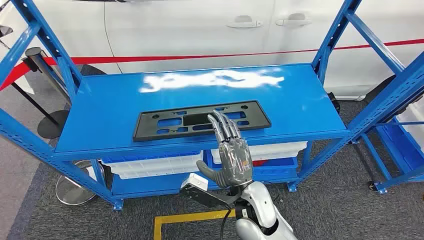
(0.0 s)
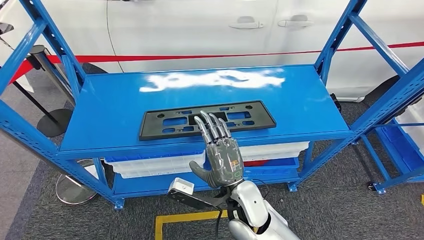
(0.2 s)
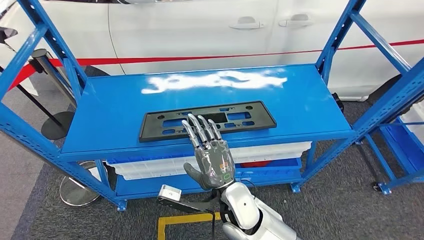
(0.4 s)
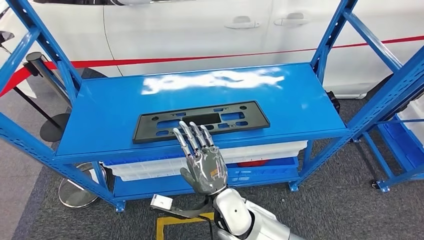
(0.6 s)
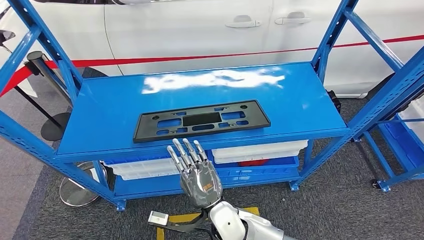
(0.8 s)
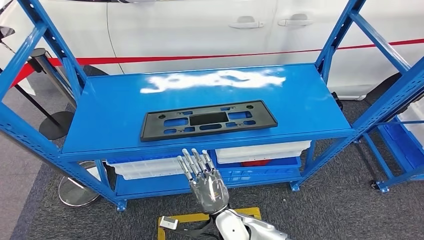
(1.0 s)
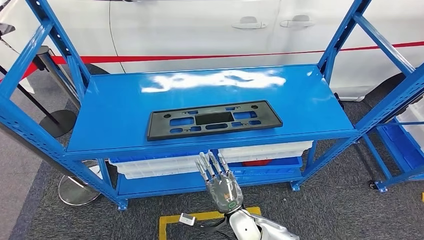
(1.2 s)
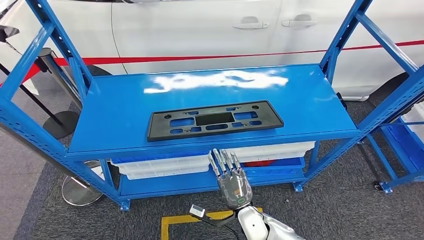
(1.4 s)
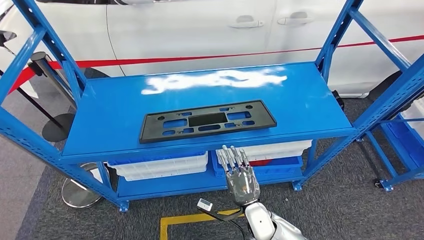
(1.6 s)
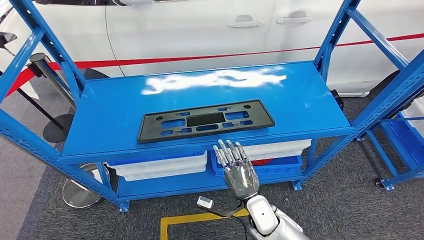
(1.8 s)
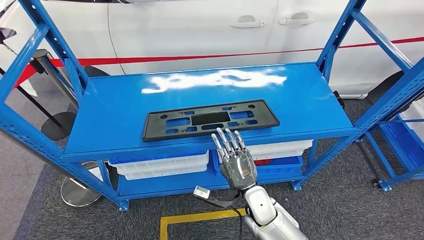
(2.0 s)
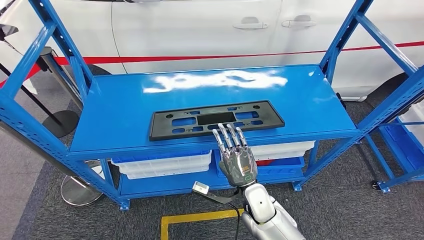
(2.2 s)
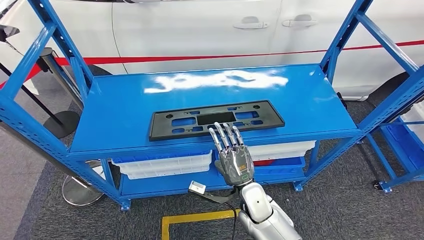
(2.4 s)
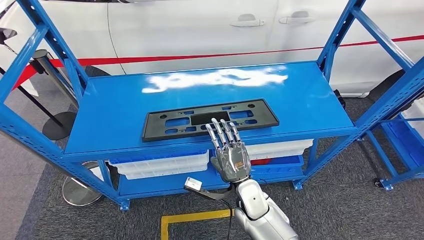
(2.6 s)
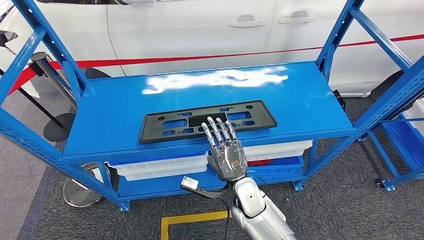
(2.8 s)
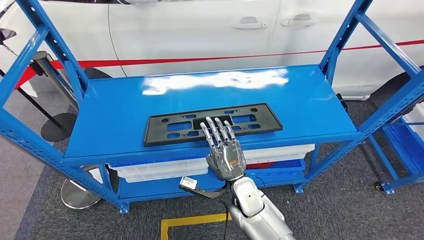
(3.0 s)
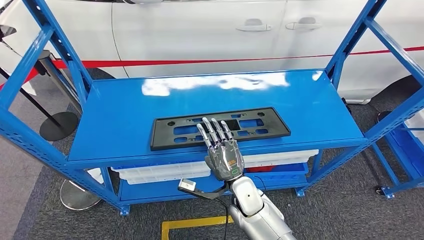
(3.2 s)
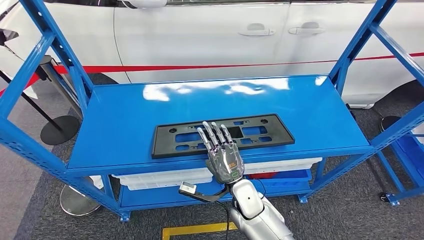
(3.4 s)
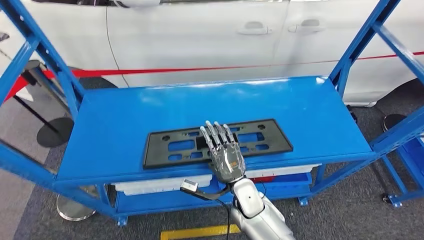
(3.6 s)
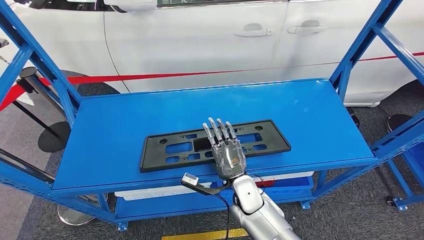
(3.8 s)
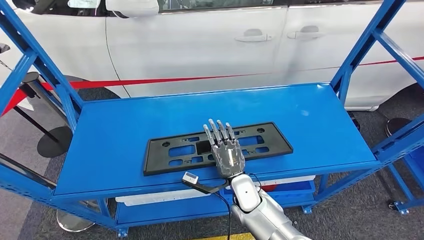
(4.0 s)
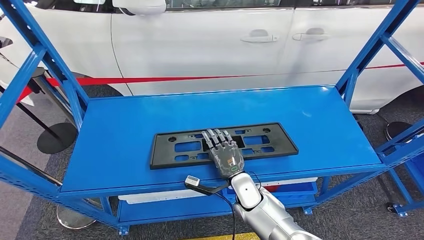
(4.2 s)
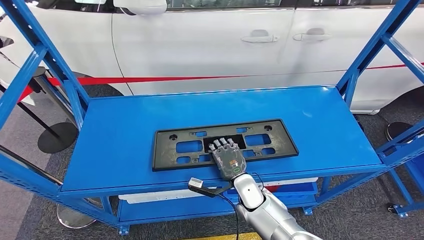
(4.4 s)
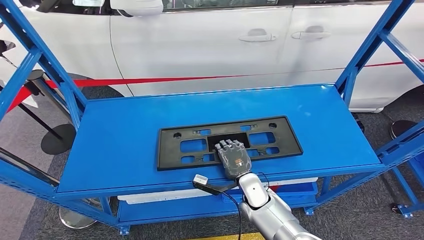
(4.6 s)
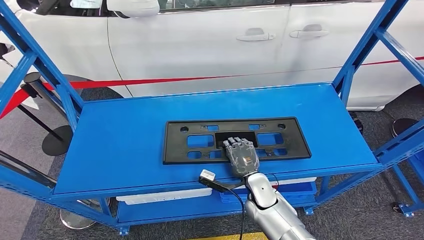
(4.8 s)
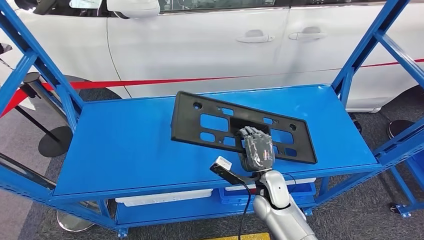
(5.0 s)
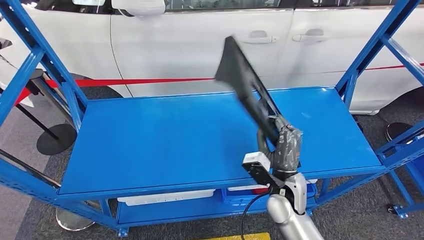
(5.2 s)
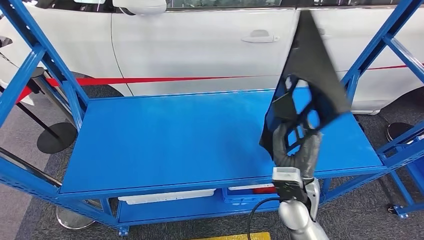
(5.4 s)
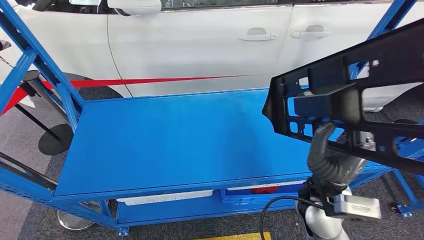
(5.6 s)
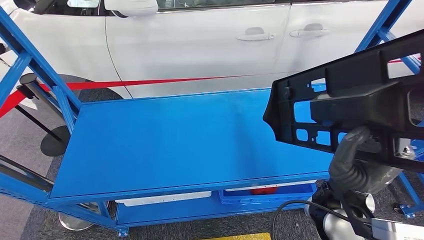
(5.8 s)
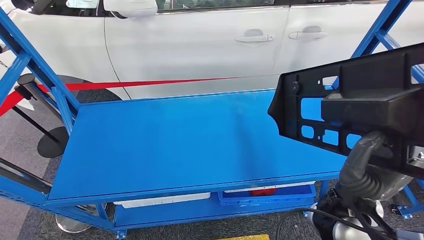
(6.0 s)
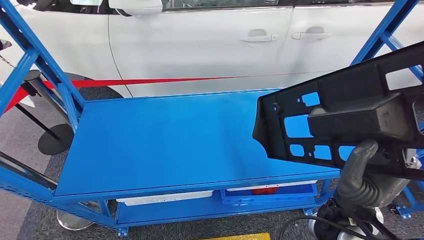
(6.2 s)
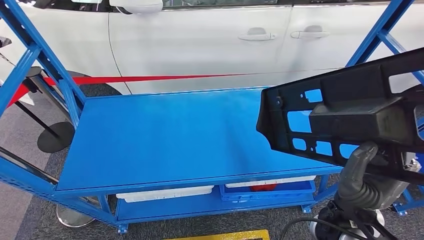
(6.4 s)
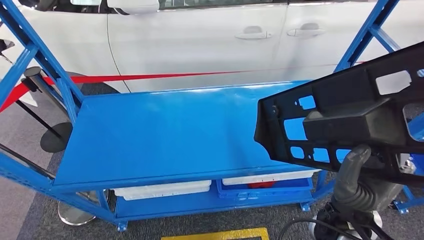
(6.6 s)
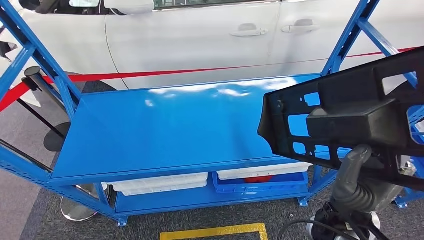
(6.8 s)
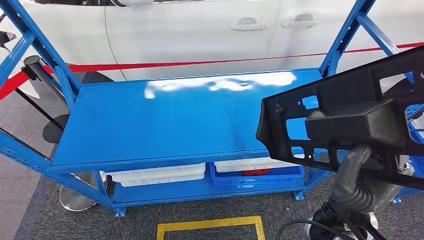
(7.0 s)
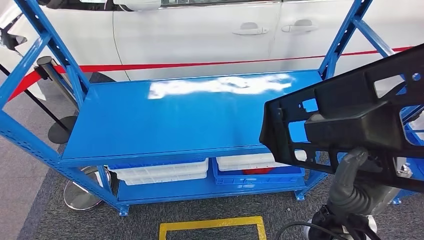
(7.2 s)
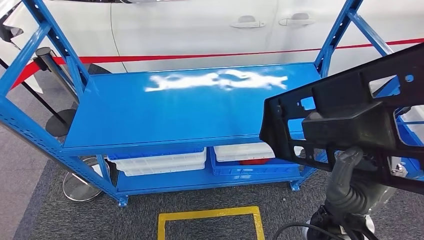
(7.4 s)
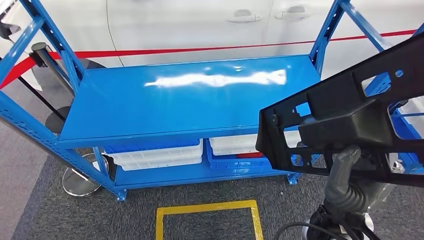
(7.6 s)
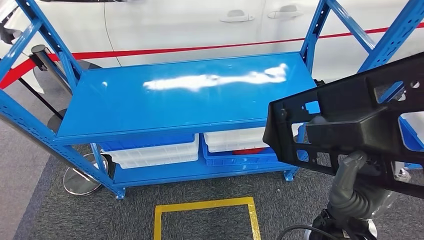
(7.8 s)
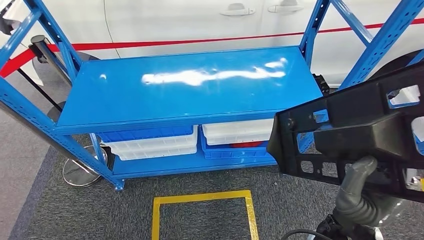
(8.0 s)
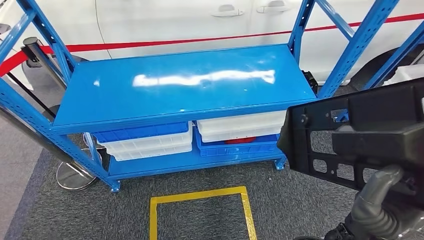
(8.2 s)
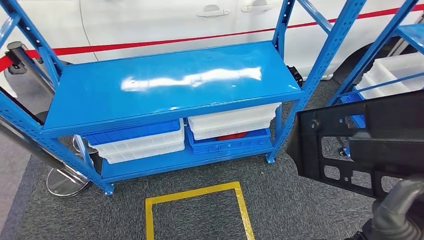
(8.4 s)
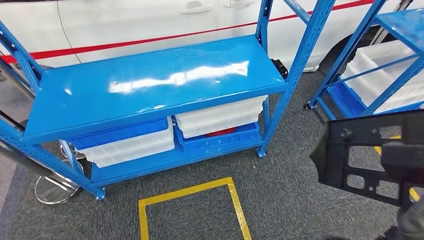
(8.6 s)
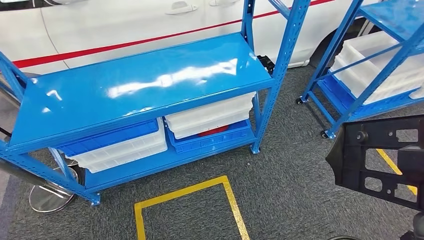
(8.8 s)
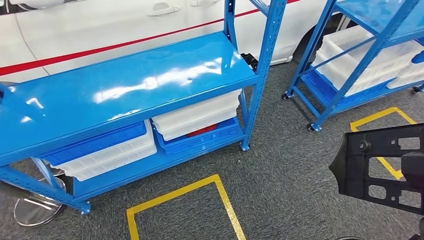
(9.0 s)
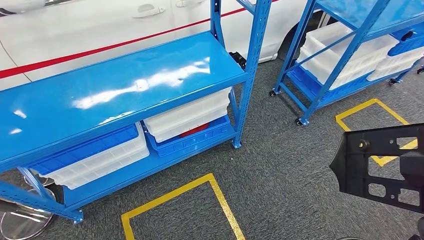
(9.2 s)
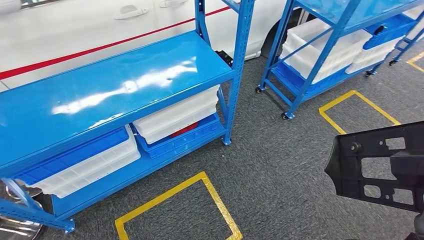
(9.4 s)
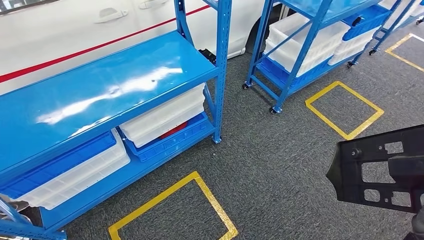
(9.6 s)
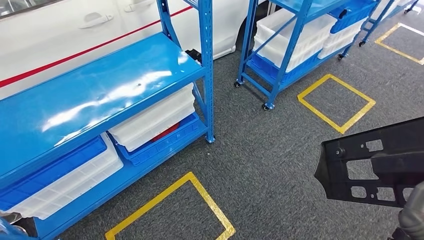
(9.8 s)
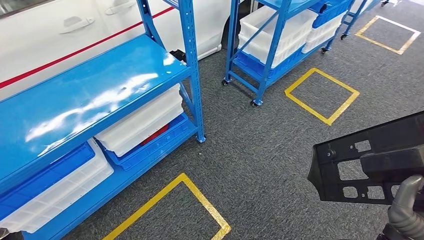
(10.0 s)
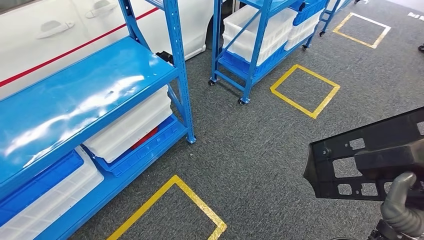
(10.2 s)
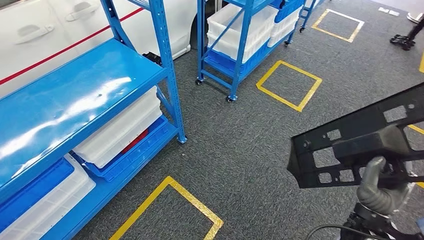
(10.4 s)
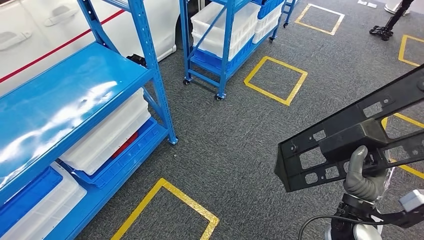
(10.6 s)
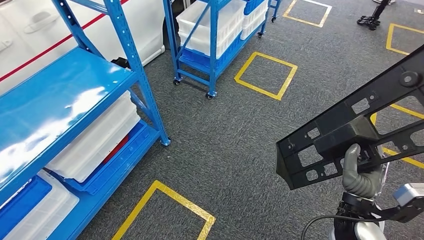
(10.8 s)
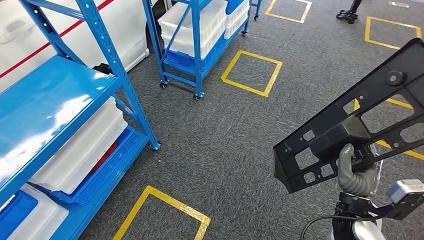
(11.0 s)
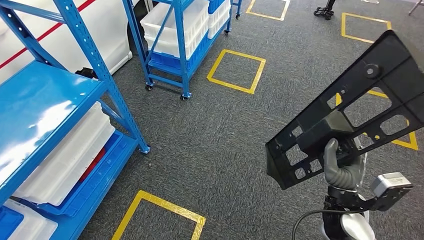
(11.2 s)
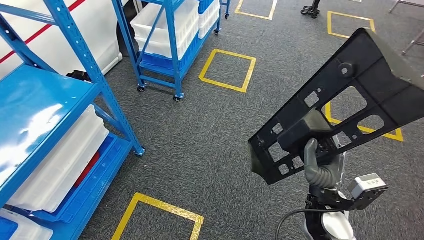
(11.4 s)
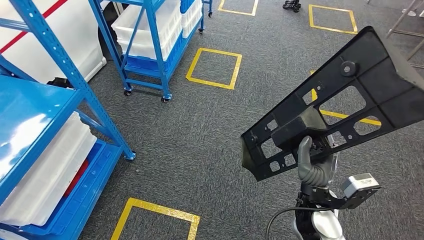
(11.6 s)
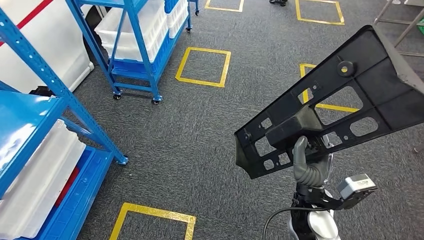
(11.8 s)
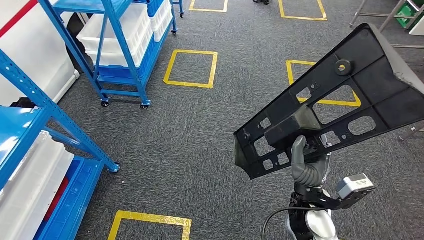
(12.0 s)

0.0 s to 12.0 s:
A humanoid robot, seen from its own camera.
Step, 0.0 to 5.4 s: Pick up the large material from the shelf.
1.6 to 3.0 s: The right hand moves upward, about 5 cm.

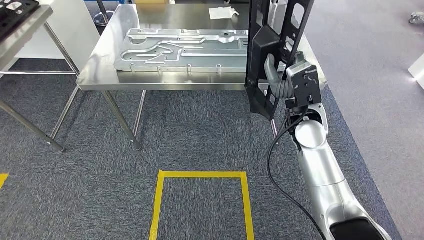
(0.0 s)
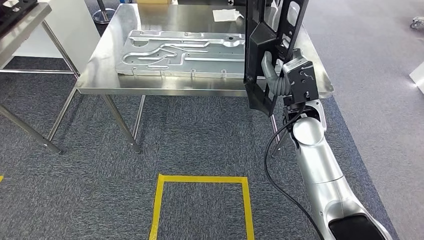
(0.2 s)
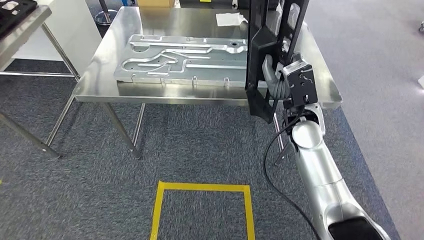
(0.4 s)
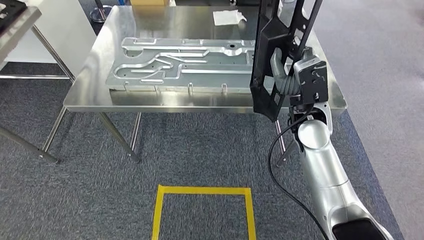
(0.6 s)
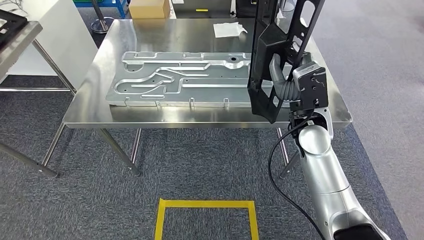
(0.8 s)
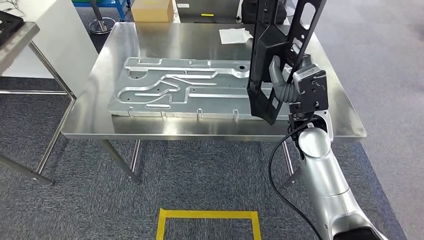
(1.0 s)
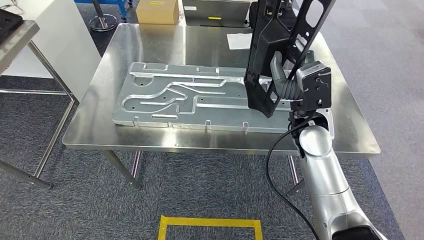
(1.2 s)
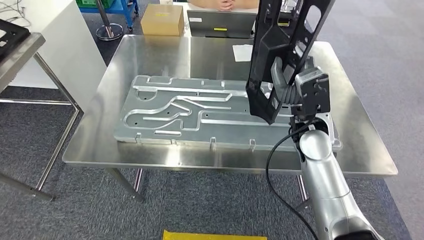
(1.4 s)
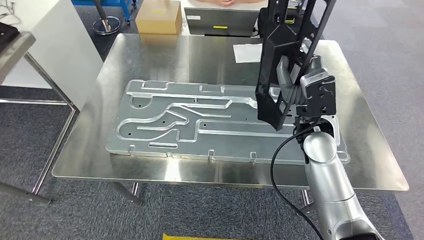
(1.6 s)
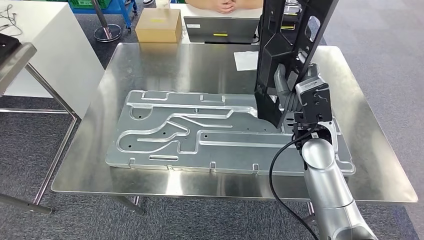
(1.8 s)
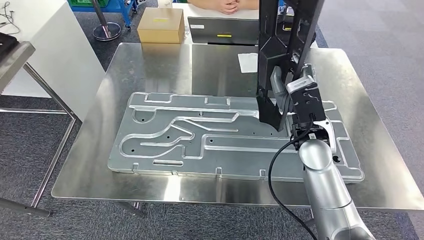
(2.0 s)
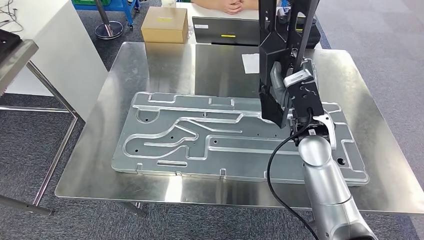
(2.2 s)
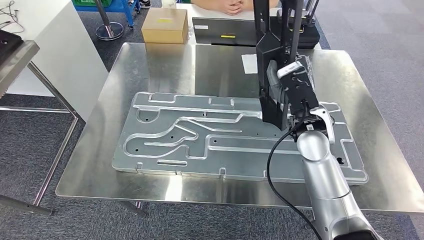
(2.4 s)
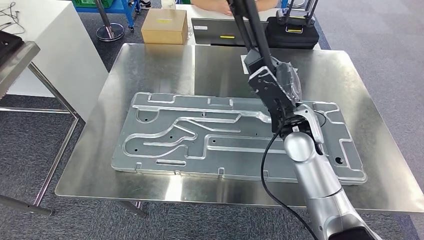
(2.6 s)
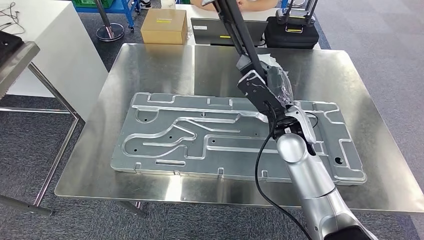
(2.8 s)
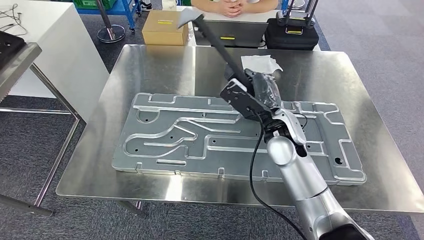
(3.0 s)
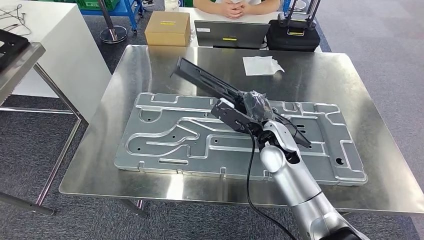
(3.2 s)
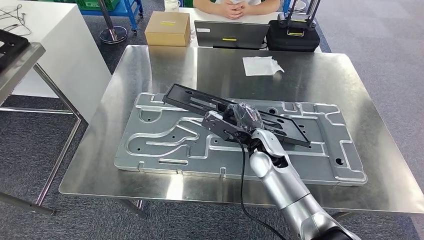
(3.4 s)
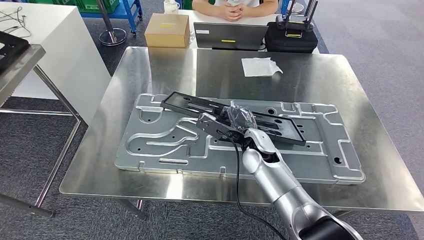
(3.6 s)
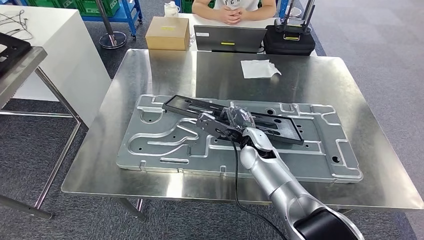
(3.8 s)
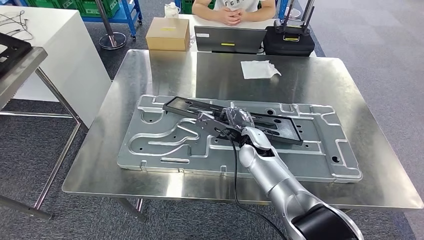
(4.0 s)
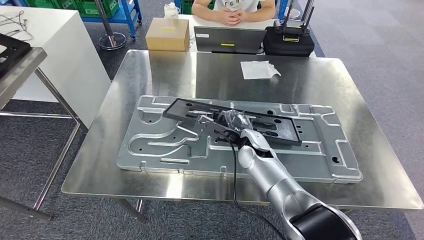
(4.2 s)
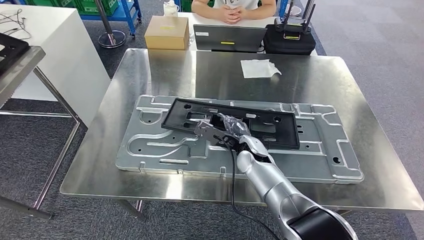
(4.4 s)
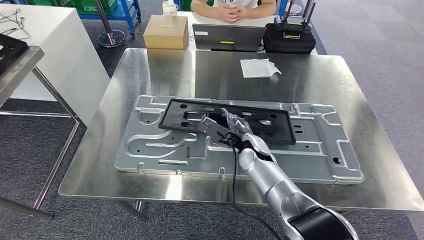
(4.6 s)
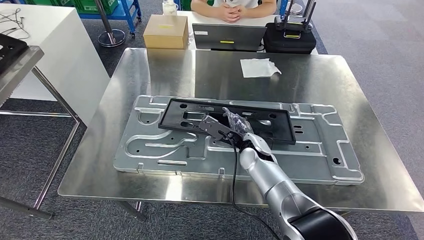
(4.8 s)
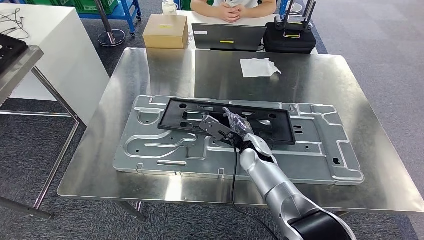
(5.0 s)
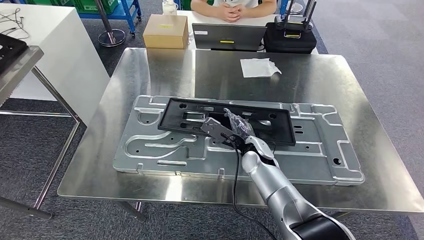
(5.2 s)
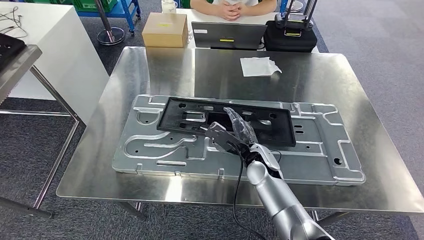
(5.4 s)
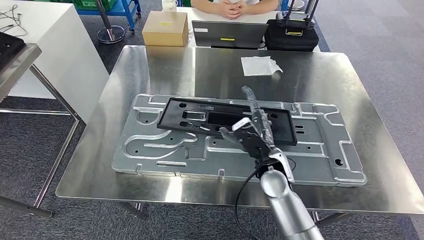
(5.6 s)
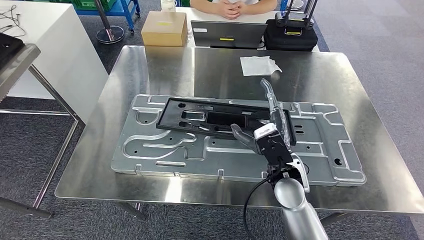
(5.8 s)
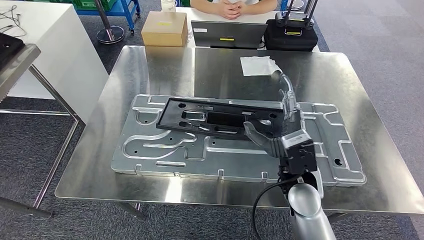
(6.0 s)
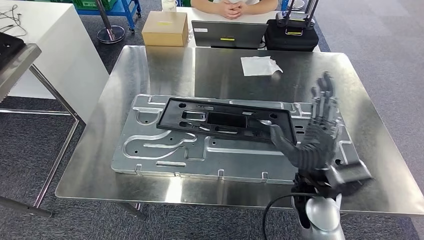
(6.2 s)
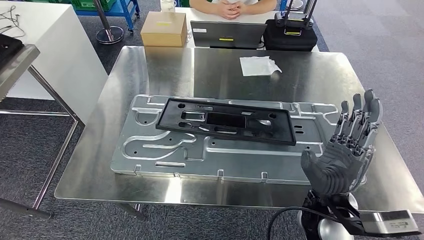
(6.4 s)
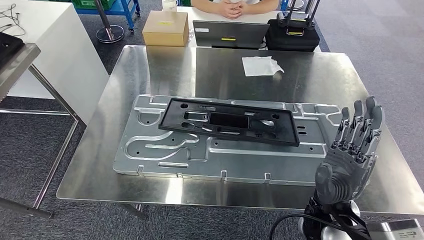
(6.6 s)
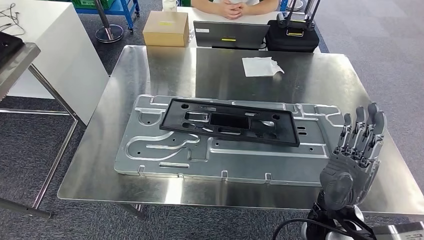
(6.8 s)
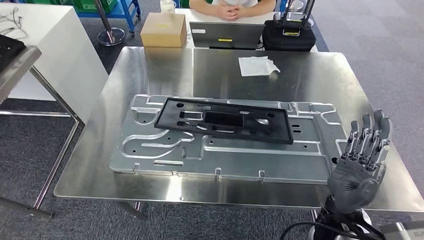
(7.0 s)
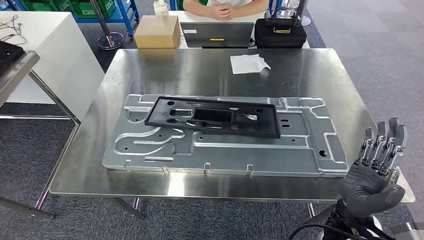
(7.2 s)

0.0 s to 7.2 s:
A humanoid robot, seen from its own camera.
Step, 2.2 to 7.0 s: Insert the large material into the corresponding slot on the workbench.
